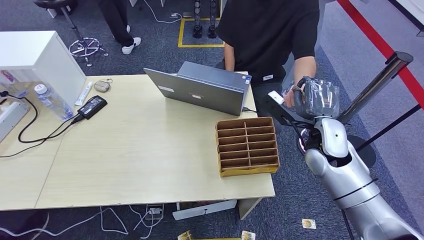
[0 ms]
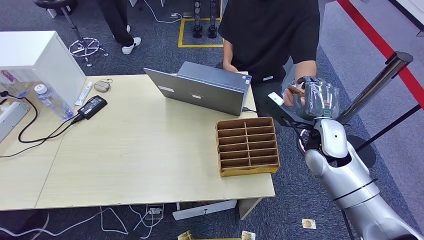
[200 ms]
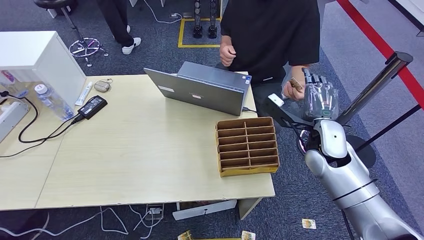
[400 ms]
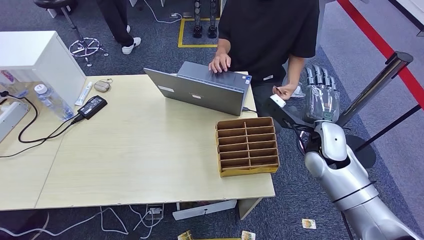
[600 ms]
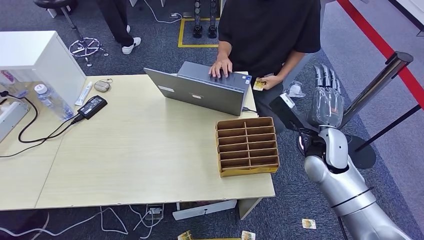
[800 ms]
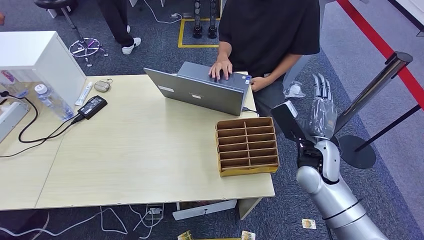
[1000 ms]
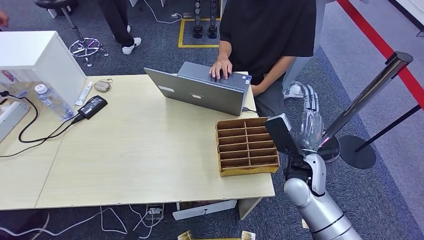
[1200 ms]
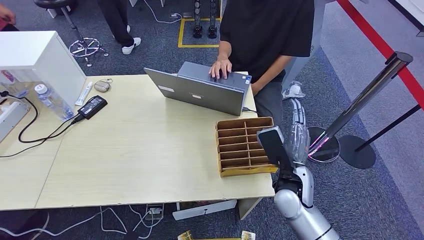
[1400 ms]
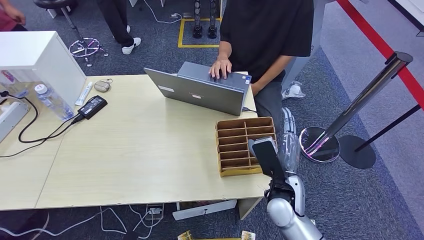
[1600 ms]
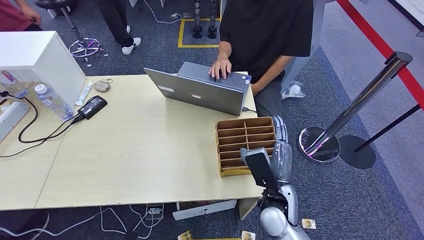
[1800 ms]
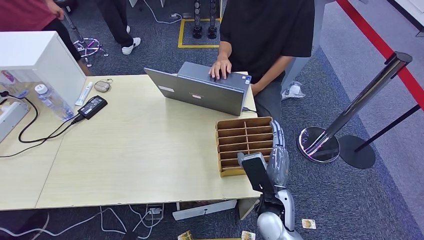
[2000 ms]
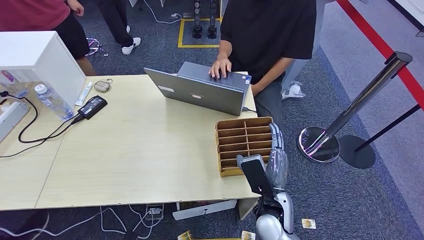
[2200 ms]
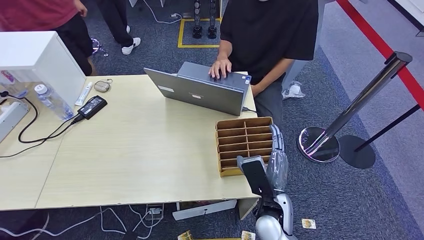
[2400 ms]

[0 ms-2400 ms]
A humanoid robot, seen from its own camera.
Step, 0 ms to 2400 ms: Hand the room card to the target.
0 ms to 1200 ms: The right hand moves downward and backward, approximately 10 cm.
1200 ms to 2400 ms: The right hand is displaced to the left, backward and downward by about 15 cm.
